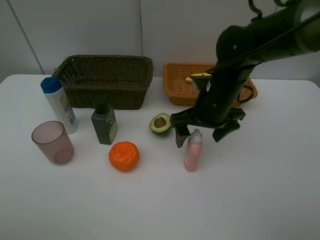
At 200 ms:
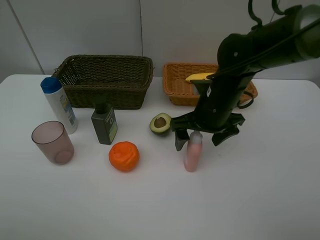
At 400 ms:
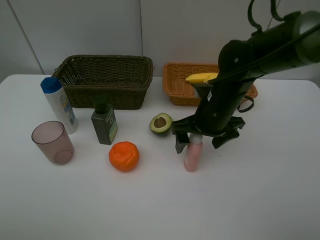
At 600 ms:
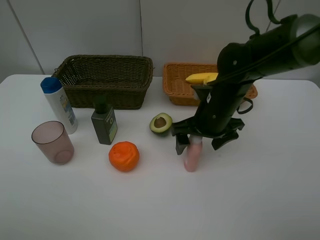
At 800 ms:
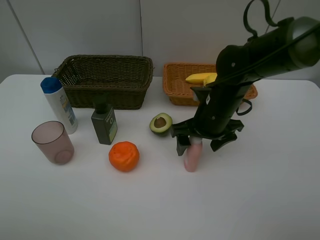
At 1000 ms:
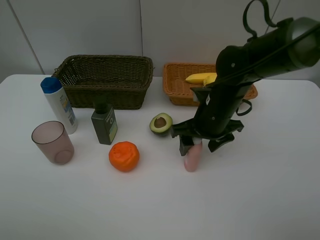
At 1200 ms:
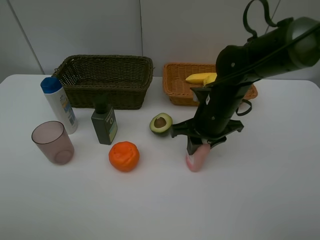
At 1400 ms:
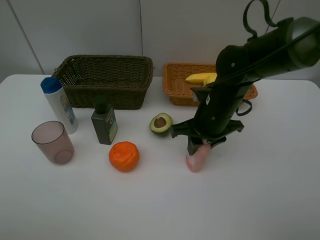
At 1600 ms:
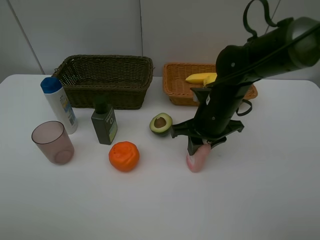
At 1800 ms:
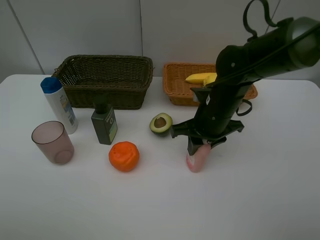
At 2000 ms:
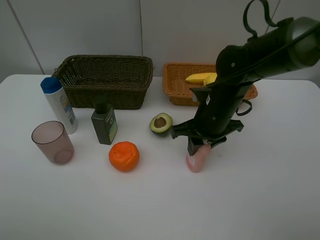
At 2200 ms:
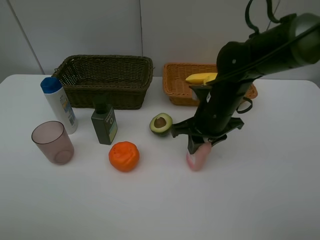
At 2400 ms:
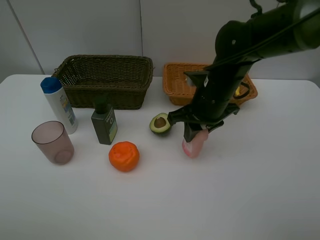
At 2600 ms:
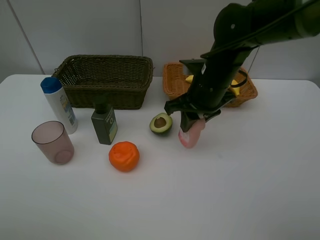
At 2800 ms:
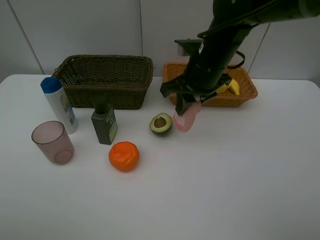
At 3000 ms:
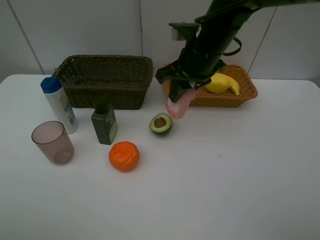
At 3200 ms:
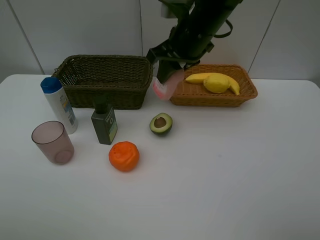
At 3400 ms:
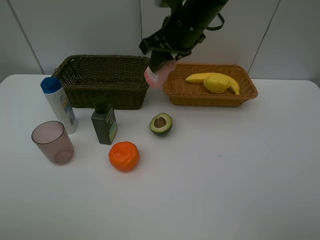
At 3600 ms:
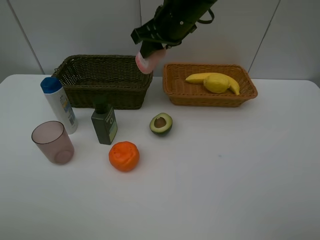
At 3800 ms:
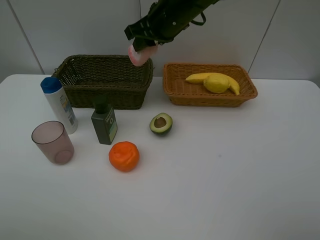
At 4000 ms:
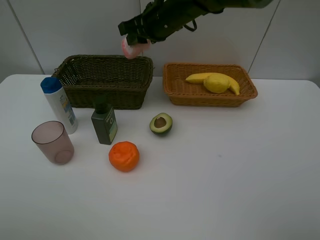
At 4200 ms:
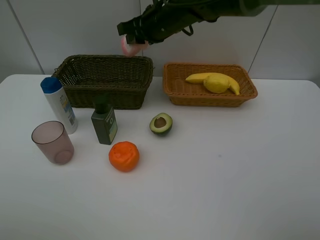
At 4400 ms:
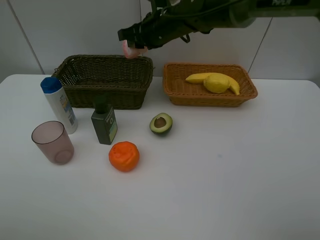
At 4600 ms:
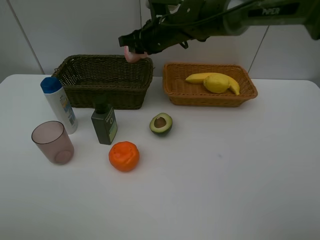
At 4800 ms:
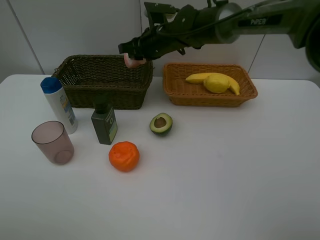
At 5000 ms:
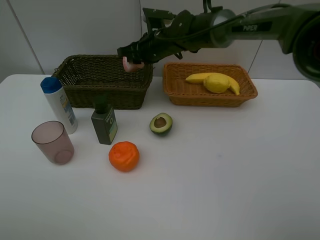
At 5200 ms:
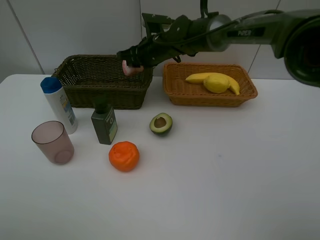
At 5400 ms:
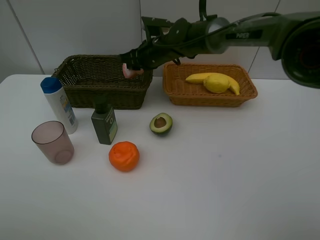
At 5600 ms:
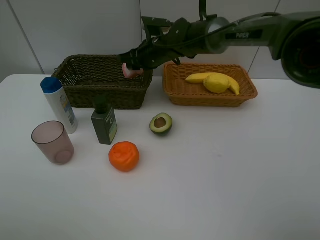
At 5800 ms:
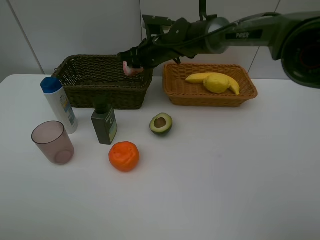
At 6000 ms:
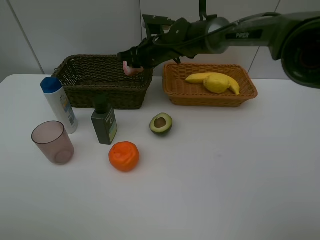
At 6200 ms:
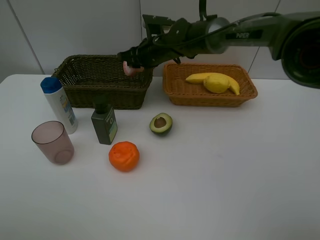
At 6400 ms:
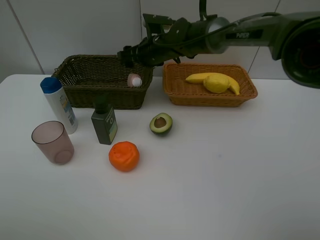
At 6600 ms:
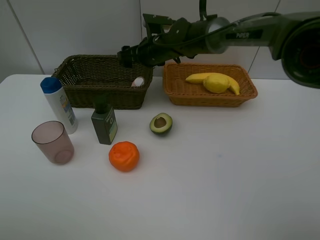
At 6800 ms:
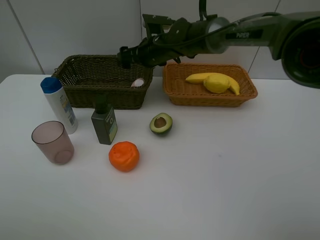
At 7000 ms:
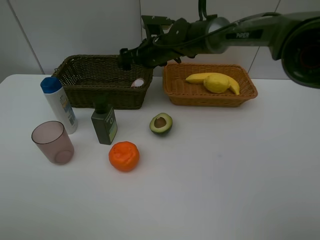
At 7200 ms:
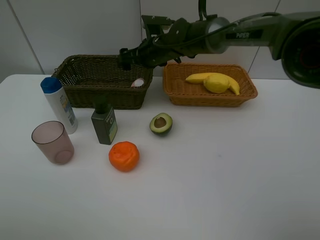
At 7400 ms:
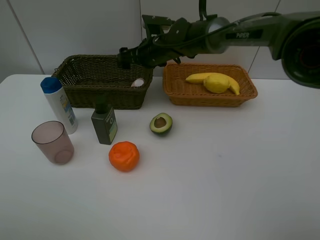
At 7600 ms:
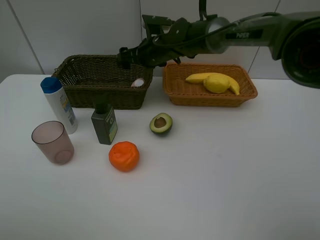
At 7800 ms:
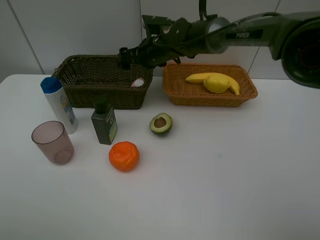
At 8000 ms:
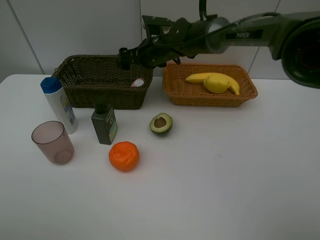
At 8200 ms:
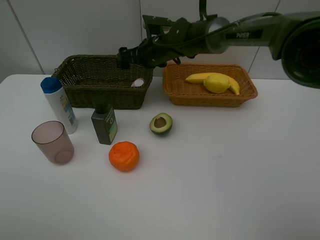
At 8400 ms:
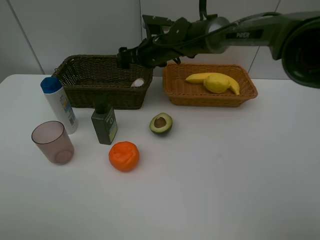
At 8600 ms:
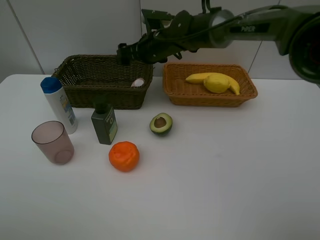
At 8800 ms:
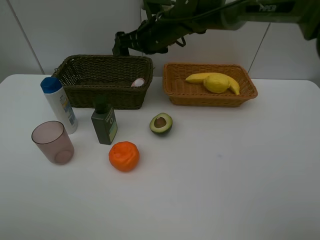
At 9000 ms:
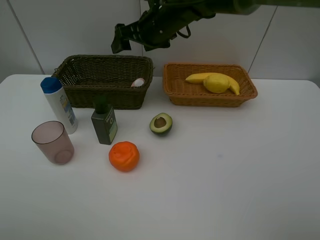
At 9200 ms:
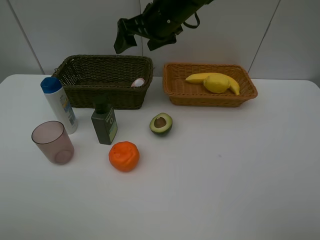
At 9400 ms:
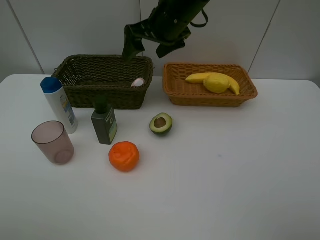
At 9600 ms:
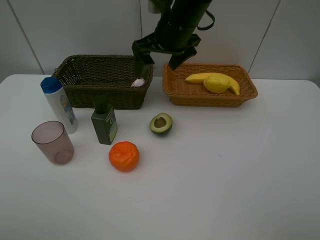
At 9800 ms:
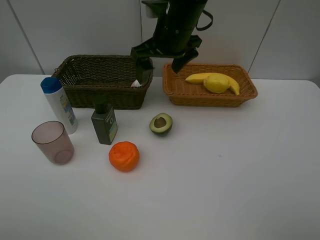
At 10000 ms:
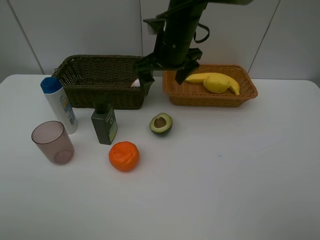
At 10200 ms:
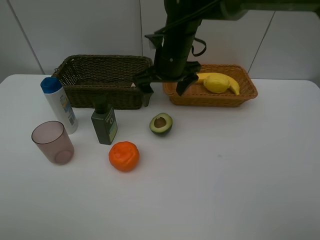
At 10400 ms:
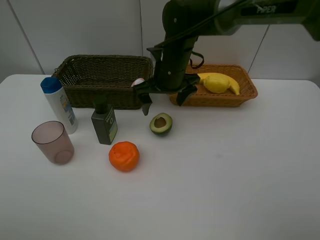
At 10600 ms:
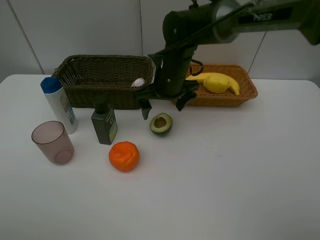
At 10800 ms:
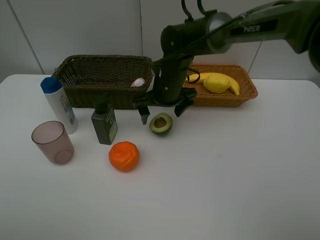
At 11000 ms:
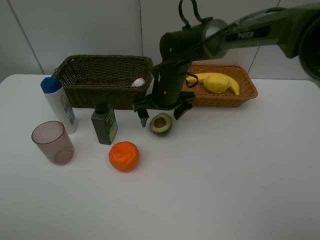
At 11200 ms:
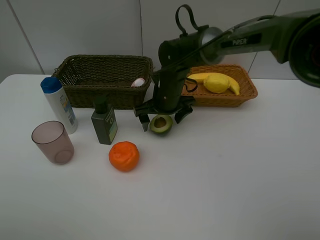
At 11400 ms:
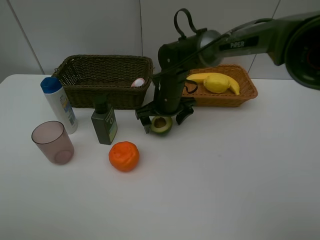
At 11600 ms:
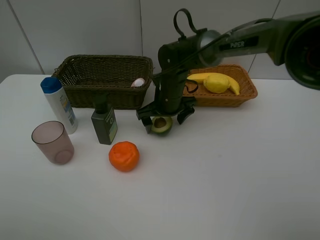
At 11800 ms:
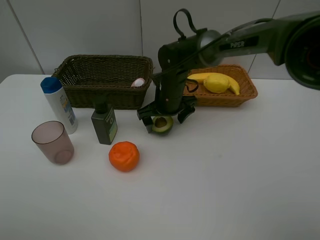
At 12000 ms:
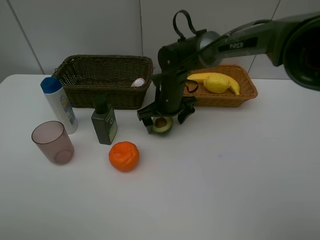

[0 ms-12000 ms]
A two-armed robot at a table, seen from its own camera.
Task of the whole recording: Place multiple objects separately in different baskets.
Step, 0 ms to 2200 ms: Pick up the laundry detergent with right gripper.
Step, 2400 ms to 6800 ms: Place the laundry detergent in the dark basket with right gripper.
0 ms to 1600 ms: The right gripper closes.
1600 ms to 3000 ms: The right gripper shifts some 10 cm upward.
3000 ms to 4400 ms: The right gripper goes some 10 cm forward and to the left.
4400 ms to 6000 ms: The right gripper travels downward by some 5 cm.
7600 ms to 9000 ms: The right gripper heads upward, covering approximately 10 cm.
9000 ms to 10400 ms: The right gripper shifts about 10 cm downward.
10400 ms to 12000 ms: The right gripper goes about 5 cm downward.

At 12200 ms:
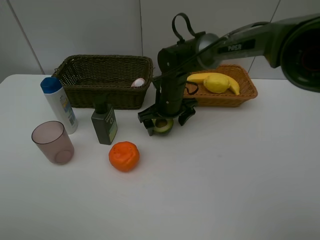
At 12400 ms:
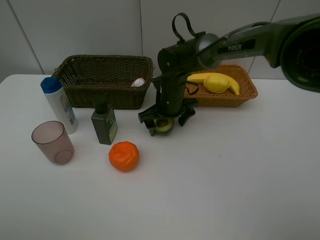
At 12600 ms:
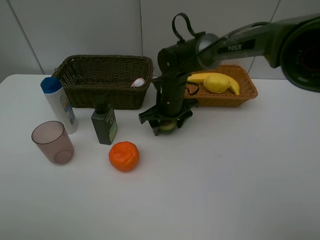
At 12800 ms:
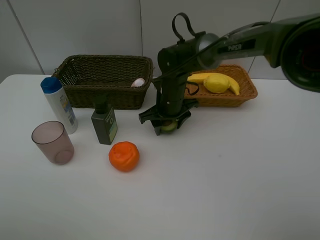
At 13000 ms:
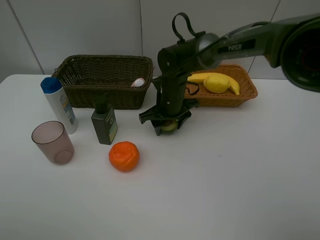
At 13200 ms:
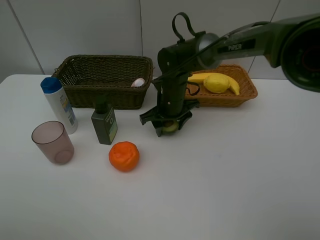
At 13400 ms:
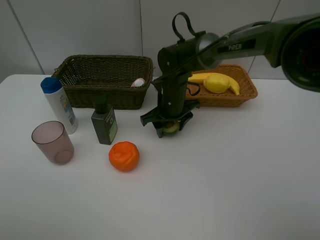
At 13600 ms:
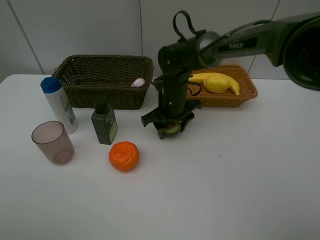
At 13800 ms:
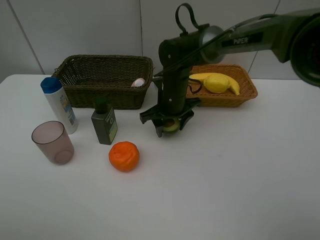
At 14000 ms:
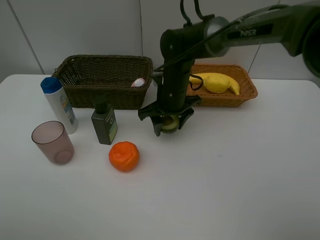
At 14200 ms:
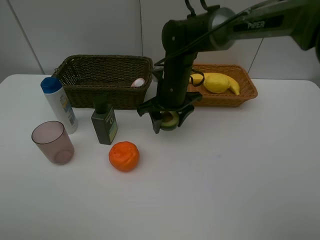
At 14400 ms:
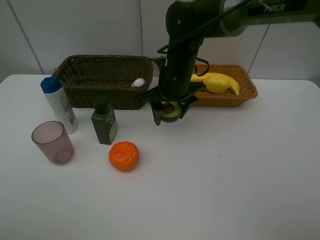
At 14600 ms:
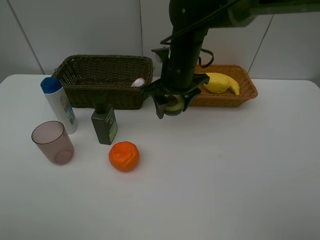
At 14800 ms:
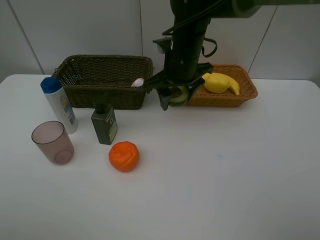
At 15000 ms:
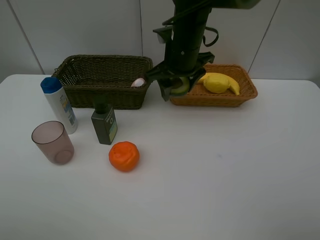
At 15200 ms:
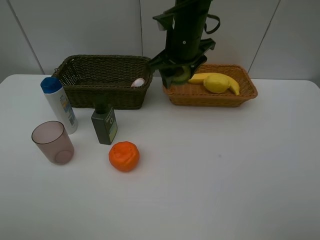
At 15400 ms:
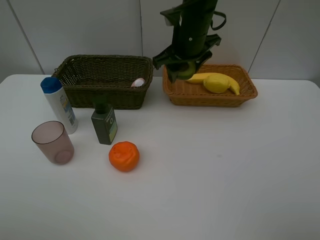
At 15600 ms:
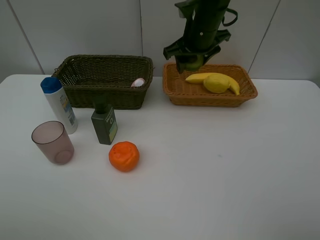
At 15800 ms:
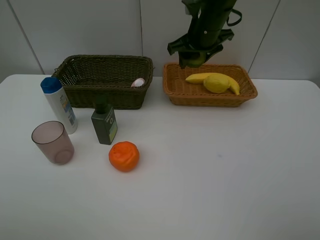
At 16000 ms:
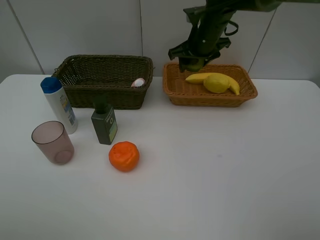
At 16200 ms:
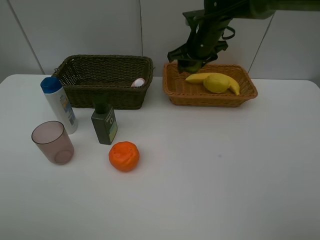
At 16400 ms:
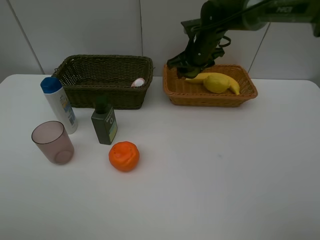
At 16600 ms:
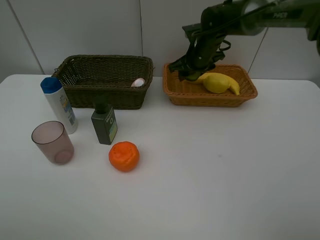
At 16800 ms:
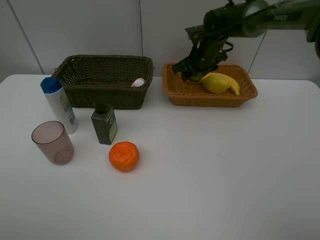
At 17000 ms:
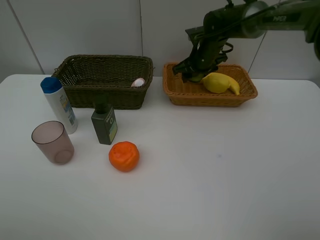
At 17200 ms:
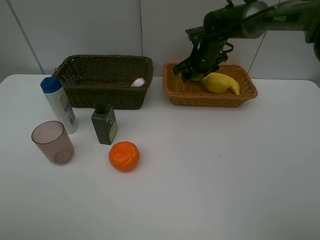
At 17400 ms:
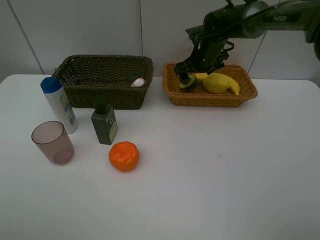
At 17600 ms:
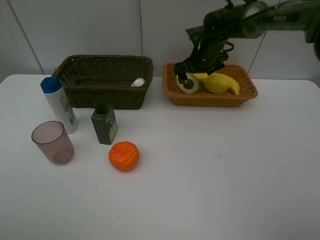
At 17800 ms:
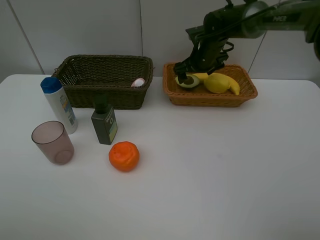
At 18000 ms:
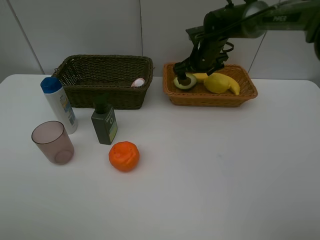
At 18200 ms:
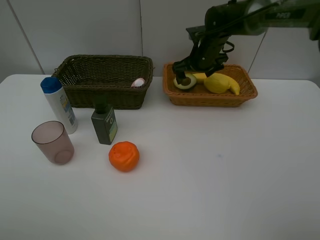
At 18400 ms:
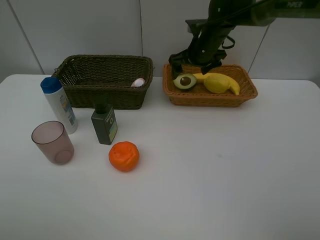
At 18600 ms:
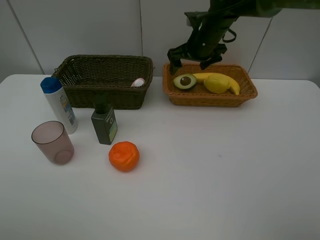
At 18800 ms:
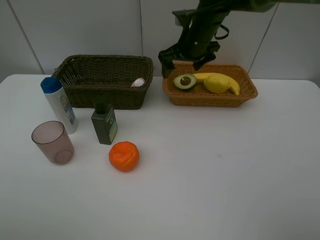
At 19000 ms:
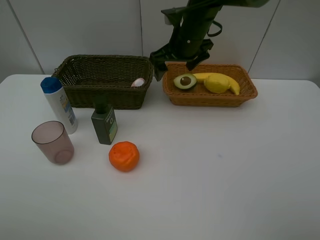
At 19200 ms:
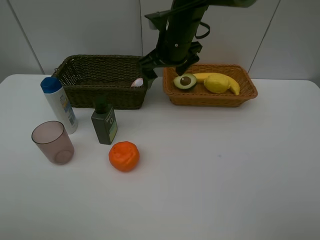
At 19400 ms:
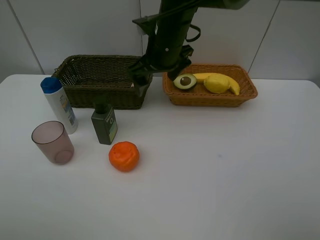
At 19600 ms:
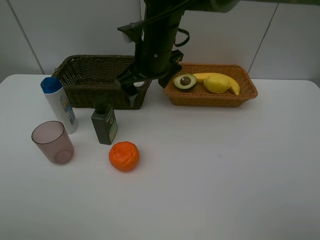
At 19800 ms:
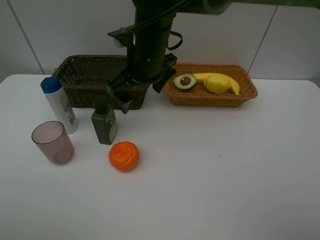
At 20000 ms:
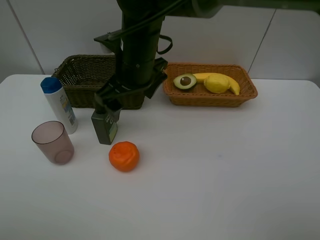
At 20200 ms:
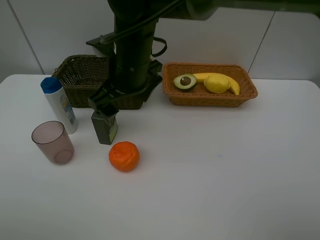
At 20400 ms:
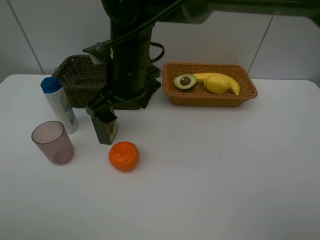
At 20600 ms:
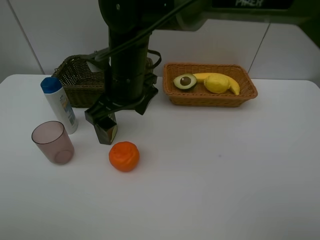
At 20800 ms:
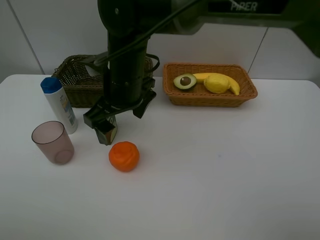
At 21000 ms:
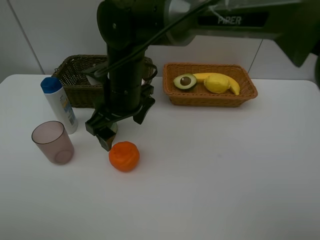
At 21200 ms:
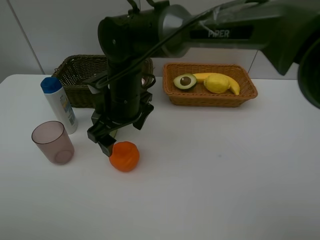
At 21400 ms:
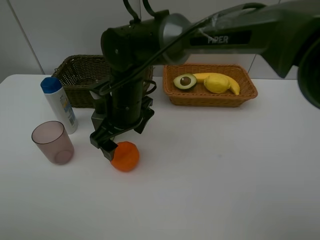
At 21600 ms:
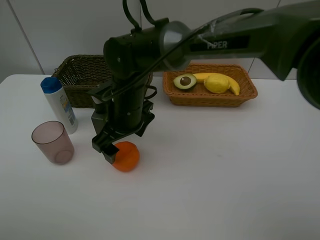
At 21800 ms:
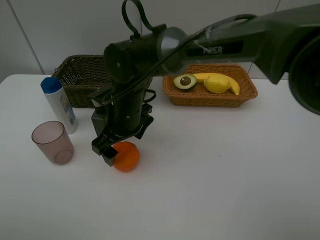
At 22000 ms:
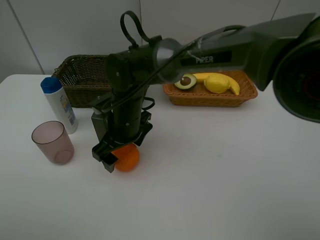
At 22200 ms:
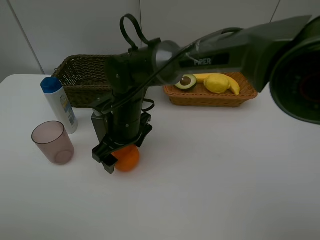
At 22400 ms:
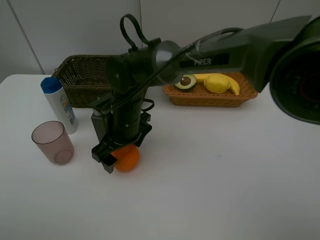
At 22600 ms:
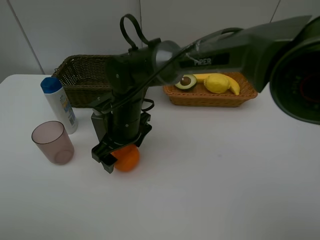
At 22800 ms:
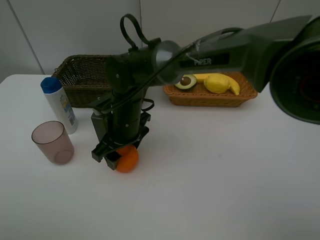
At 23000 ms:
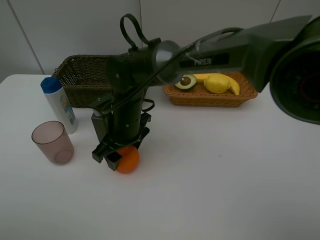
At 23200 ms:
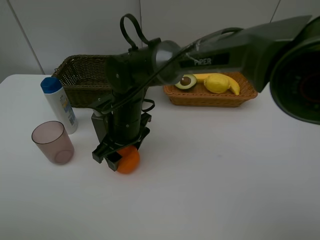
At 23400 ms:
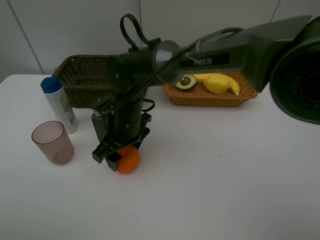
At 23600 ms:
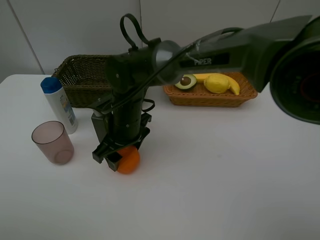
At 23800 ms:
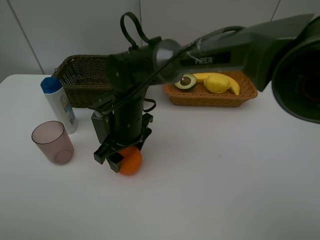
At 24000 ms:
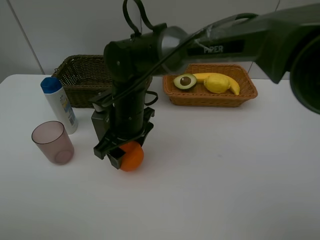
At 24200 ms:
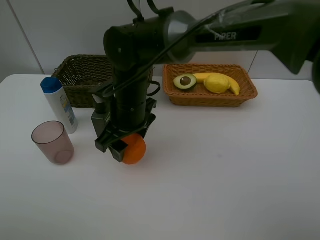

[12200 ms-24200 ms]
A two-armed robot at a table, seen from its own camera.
Task of the whole recording: Place multiple objects separately in different baskets.
Step, 14000 ms to 17800 ms: Place the avocado in the light basket with right gripper.
Step, 18000 ms to 24000 ms: Pick up the orange with right gripper.
12200 ms to 13800 ms: The right gripper closes.
13800 ms to 15200 ms: The right gripper heads upward, covering roughly 15 cm.
15200 ms to 16600 ms: The right gripper moves forward, downward and to the right, some 15 cm.
16600 ms to 18200 ms: The right gripper opens up.
18200 ms to 19800 ms: The right gripper moves backward, to the left and upward, approximately 20 cm.
19800 ms to 21200 ms: The right gripper travels downward by about 5 cm.
21200 ms to 22600 ms: The right gripper shifts roughly 5 cm downward.
22600 ms to 24200 ms: The right gripper changes place by roughly 5 cm, and closes its fingers.
